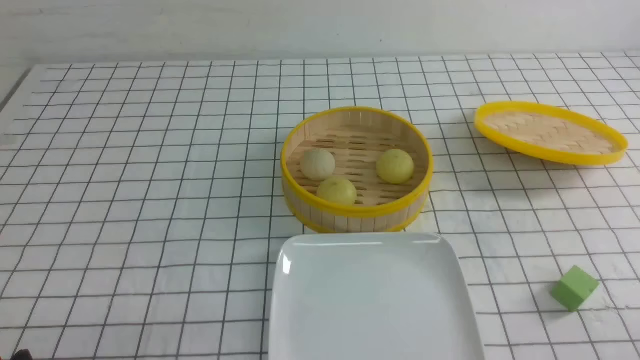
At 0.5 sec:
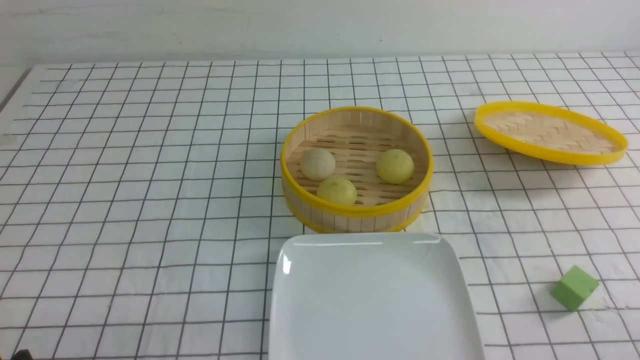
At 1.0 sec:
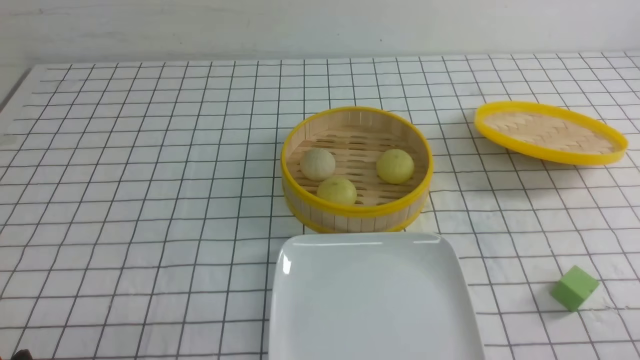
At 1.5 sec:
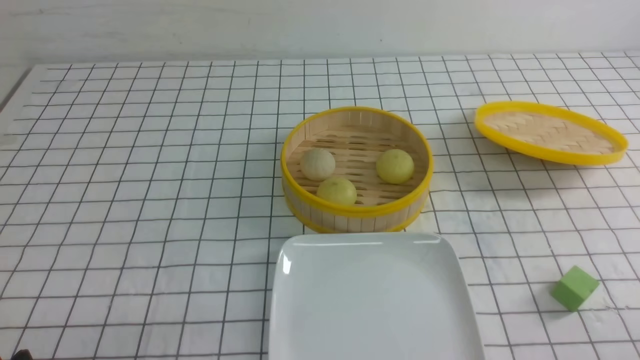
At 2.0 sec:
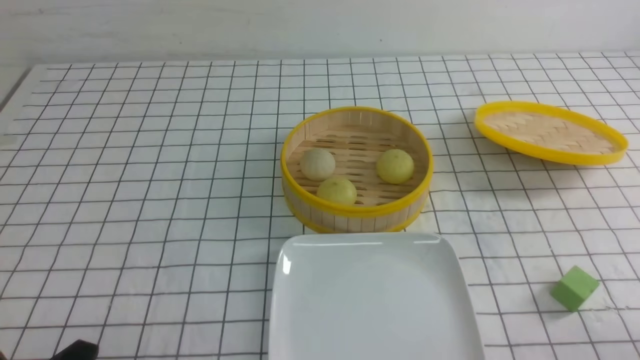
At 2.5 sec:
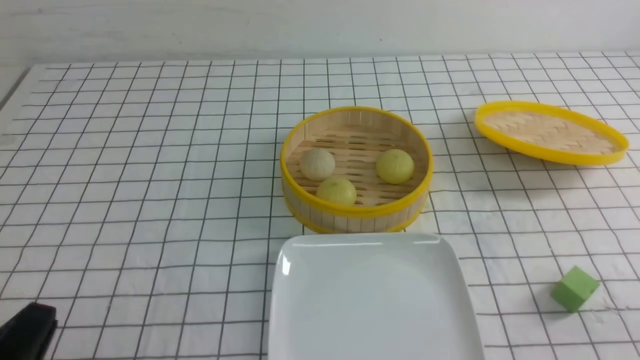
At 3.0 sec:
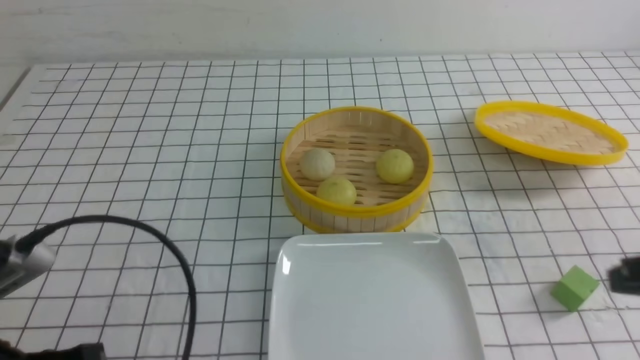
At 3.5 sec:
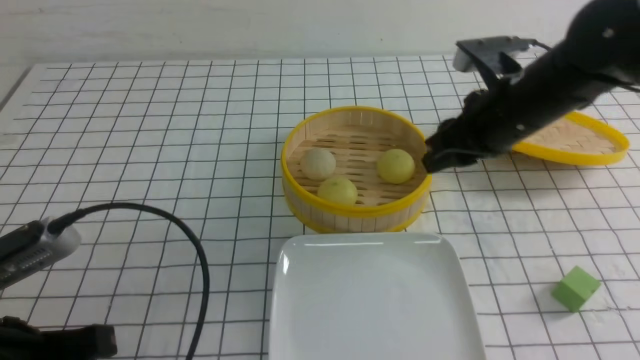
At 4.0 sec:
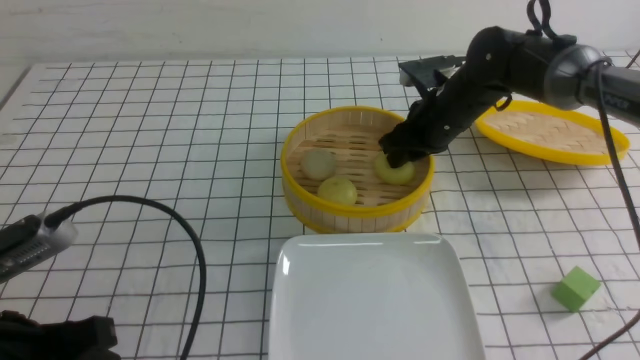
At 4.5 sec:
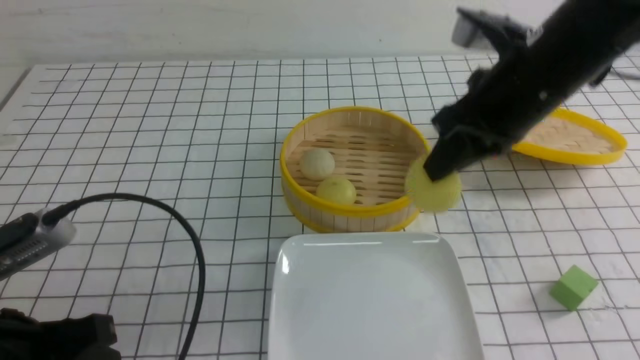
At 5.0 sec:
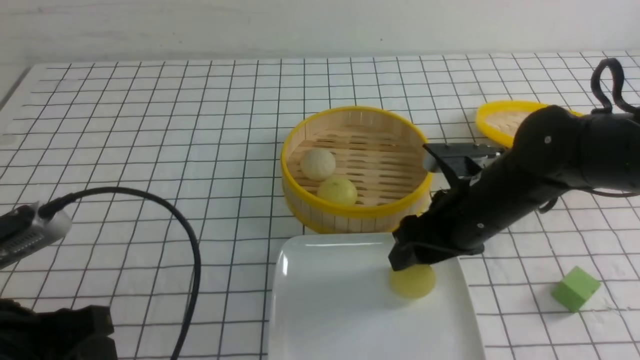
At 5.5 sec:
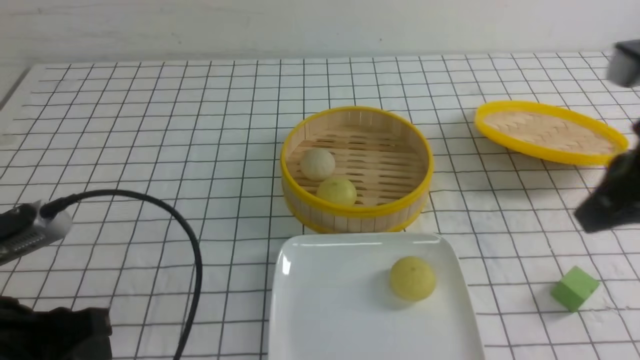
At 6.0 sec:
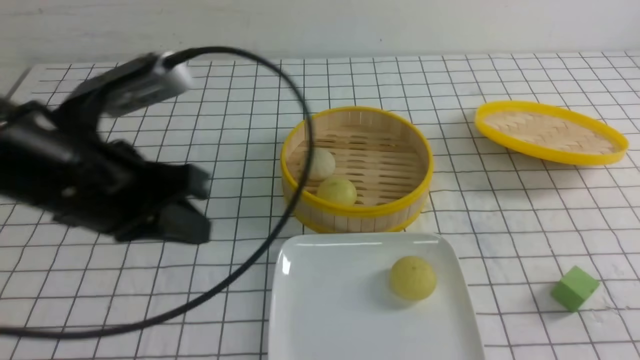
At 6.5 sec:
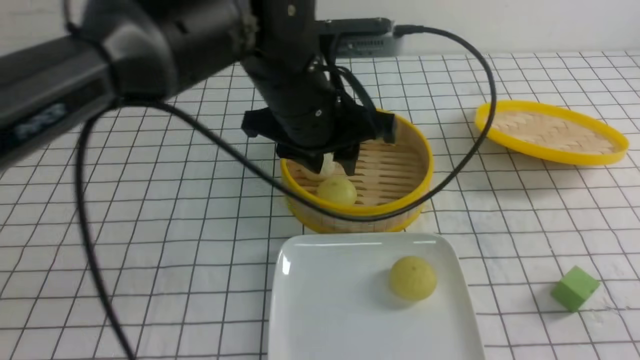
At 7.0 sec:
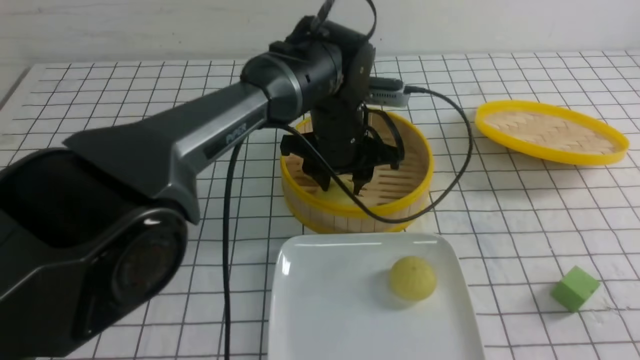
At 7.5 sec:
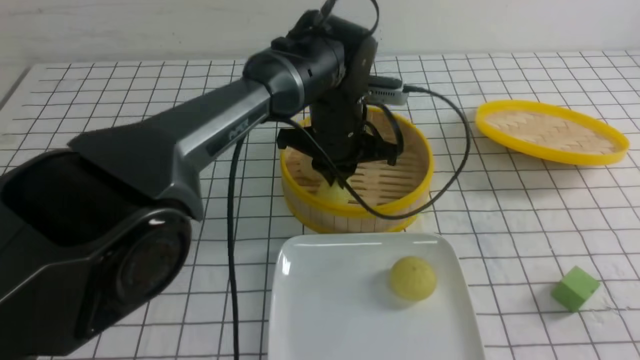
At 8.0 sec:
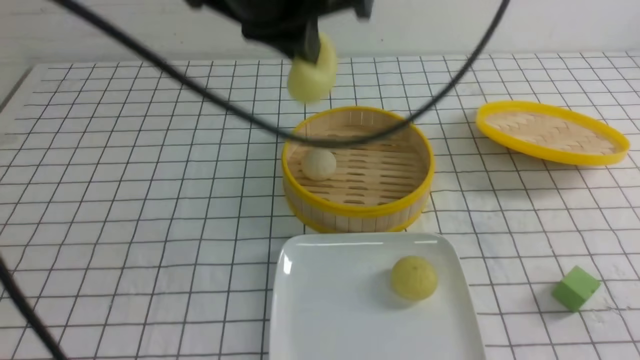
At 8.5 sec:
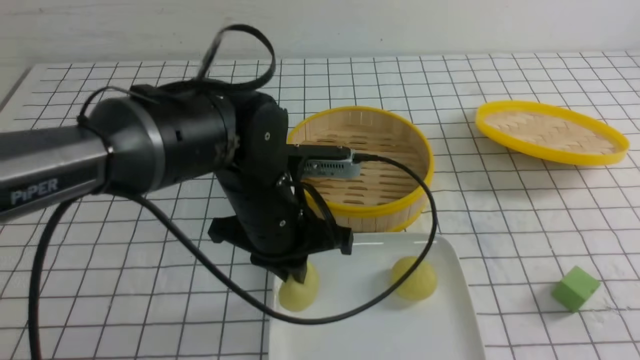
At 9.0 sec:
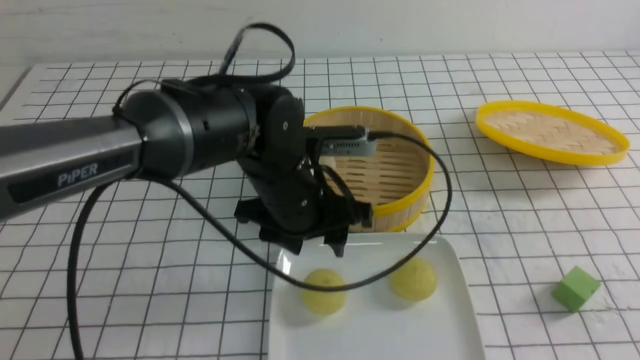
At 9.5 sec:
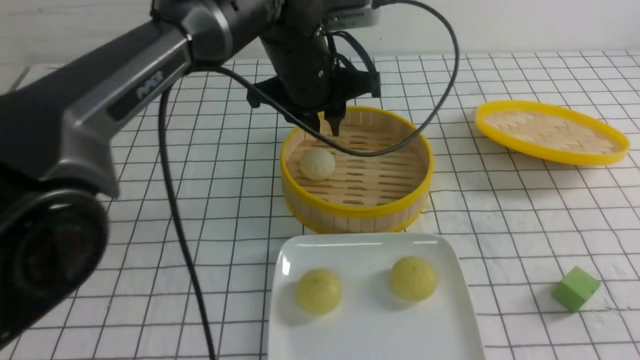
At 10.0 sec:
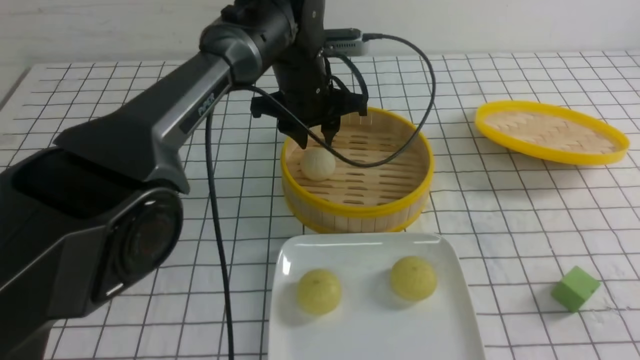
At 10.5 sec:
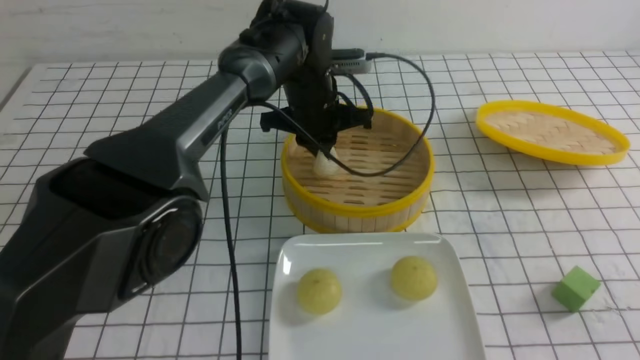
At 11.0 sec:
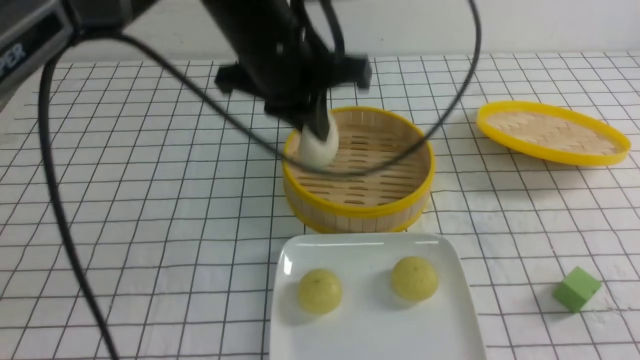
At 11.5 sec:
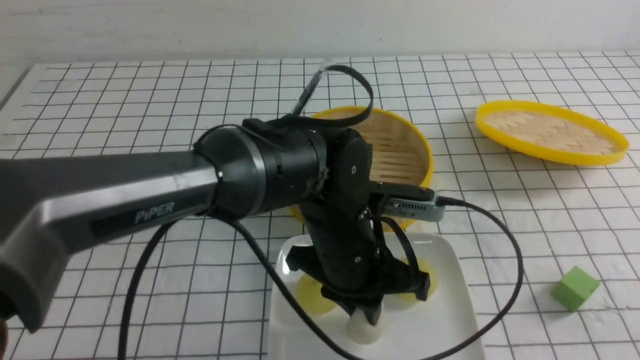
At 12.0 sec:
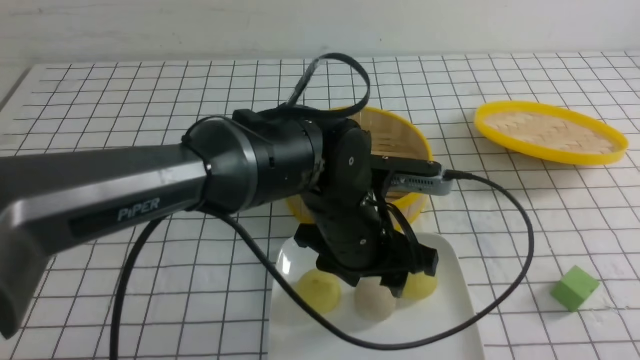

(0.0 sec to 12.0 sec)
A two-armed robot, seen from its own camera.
Step, 0.0 sec - 4.0 sec: use the right arm to grab the steamed stuffed bun that is closest to it.
Step, 4.5 sec - 5.0 sec: use the right arm to put the steamed stuffed bun into the plate.
Step, 5.5 sec - 7.5 sec: use the left arm to grab the steamed stuffed bun that is closest to it.
Step, 8.0 sec - 9.0 sec: use the left arm to put the steamed stuffed bun into the plate.
Step, 9.5 sec - 10.0 sec: use the left arm to grab the steamed stuffed bun that is closest to it.
Step, 11.0 sec - 12.0 sec: use the left arm to put the steamed stuffed bun into the plate.
2.0 sec - 4.0 sec: The left gripper is displaced upward and forward by roughly 10 cm, and closes and opens again. The right gripper travels forward by some 40 cm, and closes and opens again.
4.0 sec - 6.0 sec: The right gripper goes some 40 cm backward, and closes, while the left gripper travels forward, upward and to the right by some 15 cm, and closes.
6.0 sec - 8.0 sec: The left gripper is displaced to the right, forward and upward by about 15 cm, and opens, then closes again.
8.0 sec - 10.0 sec: The left gripper shifts approximately 20 cm forward and downward, and opens.
10.0 sec - 12.0 sec: The left gripper is displaced backward by some 20 cm, and closes and opens again. The right gripper is displaced backward by approximately 10 cm, and closes.

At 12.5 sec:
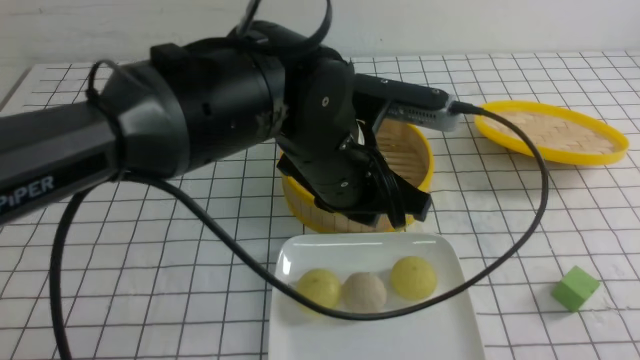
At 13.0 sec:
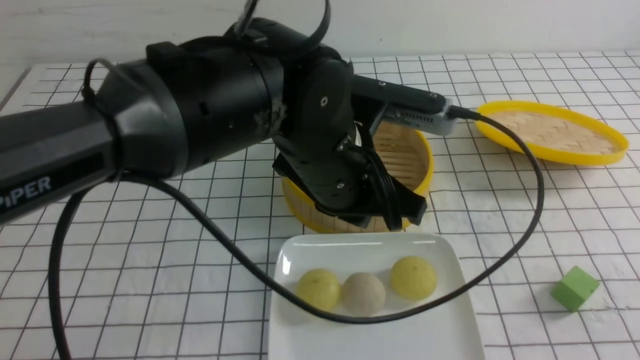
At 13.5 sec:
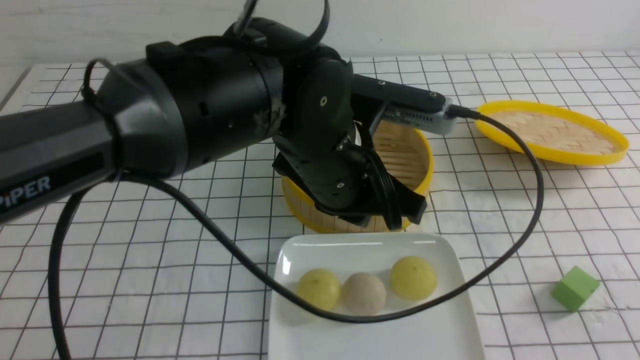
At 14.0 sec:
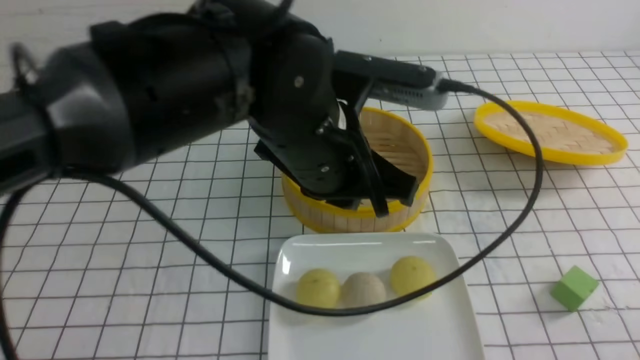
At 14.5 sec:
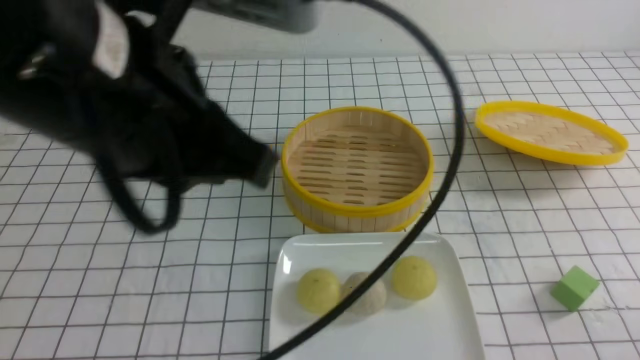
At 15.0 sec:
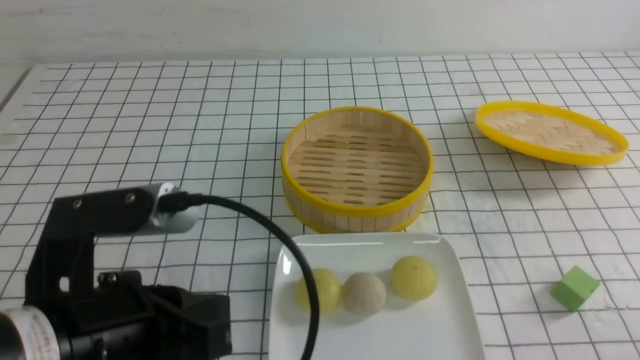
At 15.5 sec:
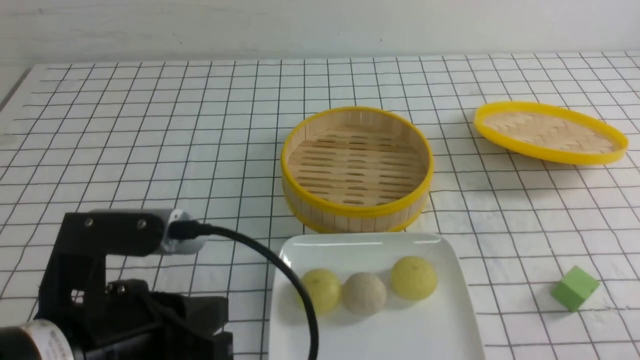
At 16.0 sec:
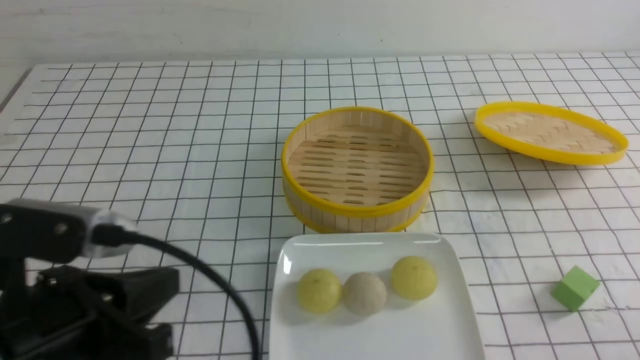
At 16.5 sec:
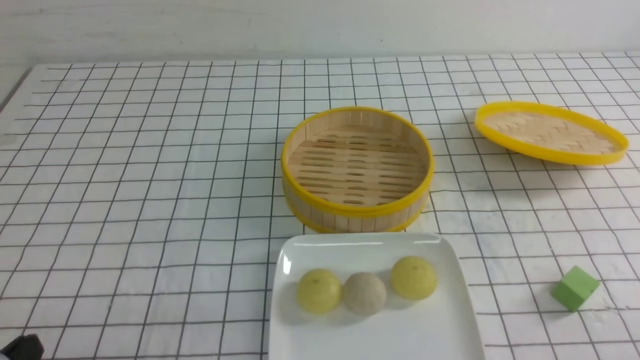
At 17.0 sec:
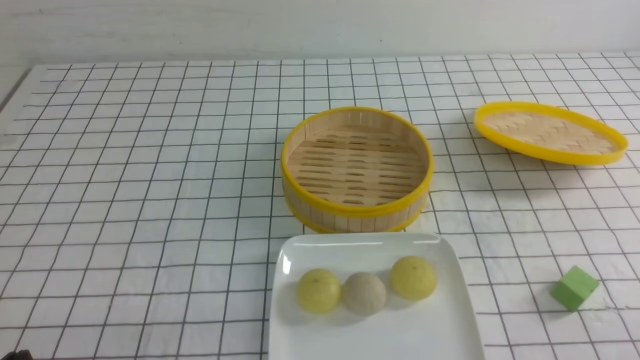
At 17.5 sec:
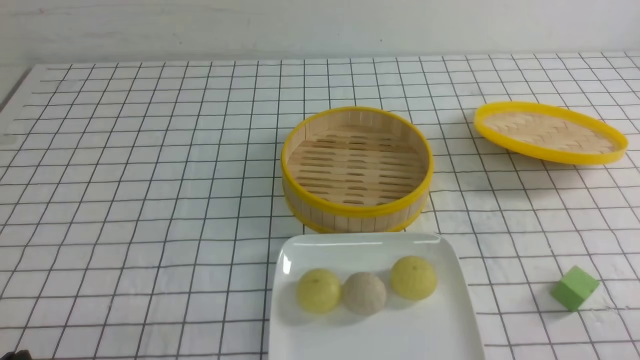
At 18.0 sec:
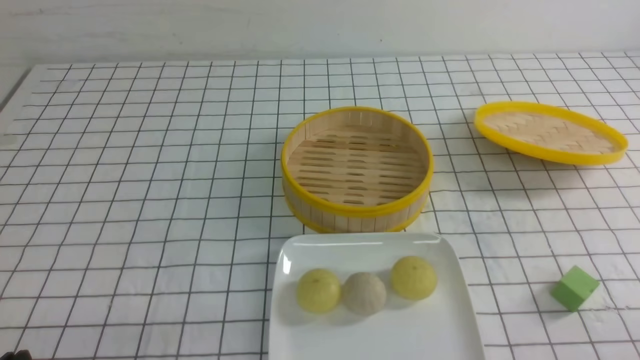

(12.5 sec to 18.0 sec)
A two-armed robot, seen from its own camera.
12.5 sec - 14.5 sec: The left gripper travels to the left, upward and backward by roughly 20 cm. The right gripper travels downward by about 10 cm.
14.5 sec - 16.0 sec: The left gripper is displaced downward, to the left and backward by about 15 cm.
16.0 sec - 18.0 sec: The left gripper travels downward and to the left by about 10 cm.
